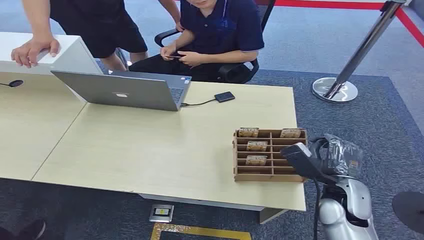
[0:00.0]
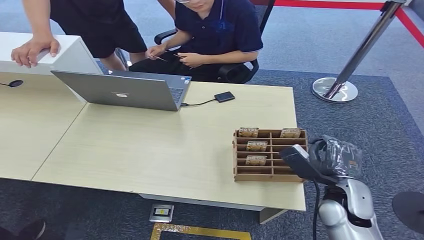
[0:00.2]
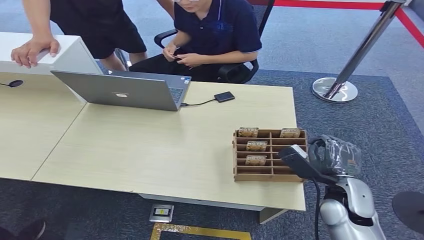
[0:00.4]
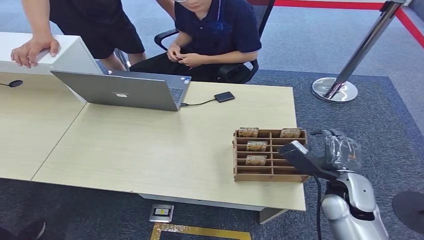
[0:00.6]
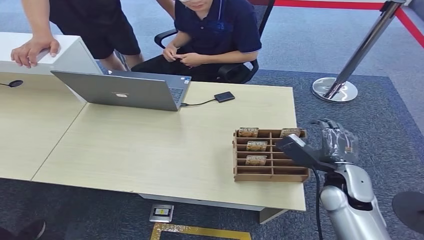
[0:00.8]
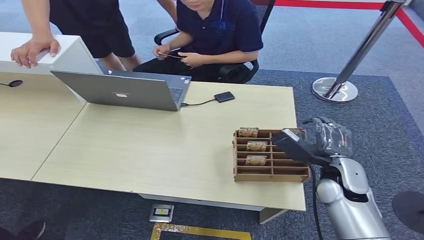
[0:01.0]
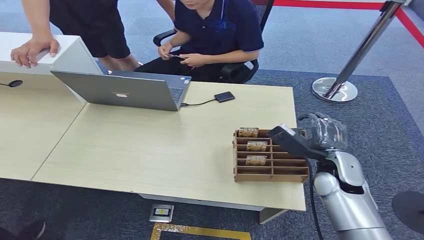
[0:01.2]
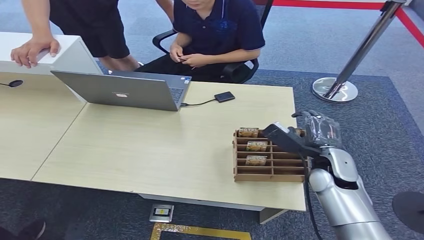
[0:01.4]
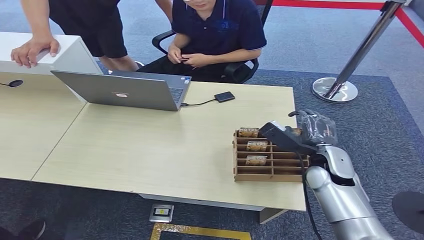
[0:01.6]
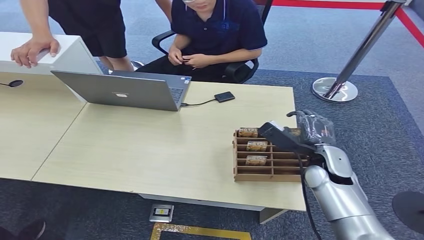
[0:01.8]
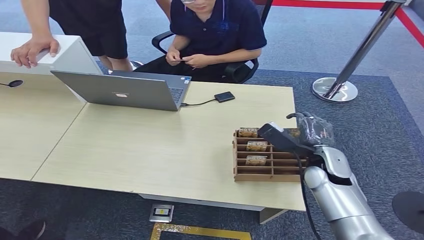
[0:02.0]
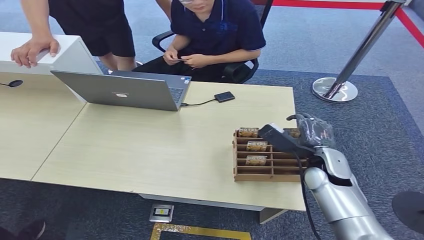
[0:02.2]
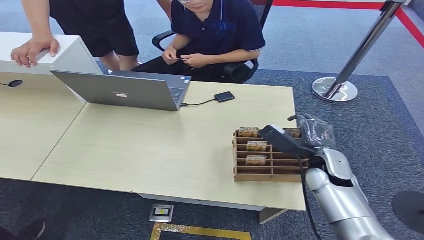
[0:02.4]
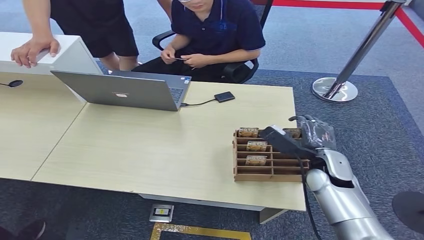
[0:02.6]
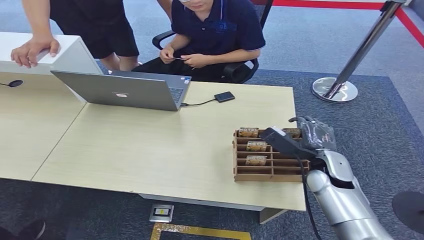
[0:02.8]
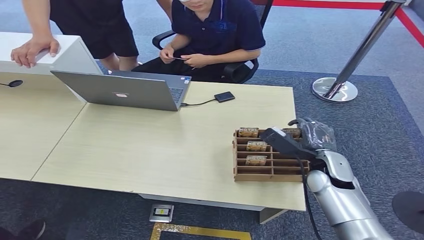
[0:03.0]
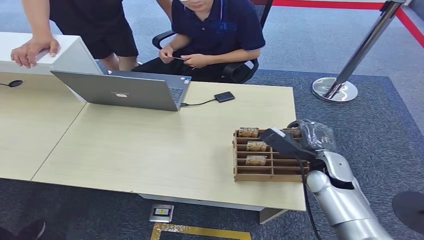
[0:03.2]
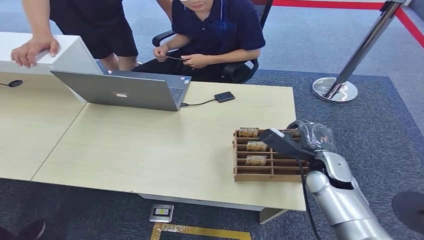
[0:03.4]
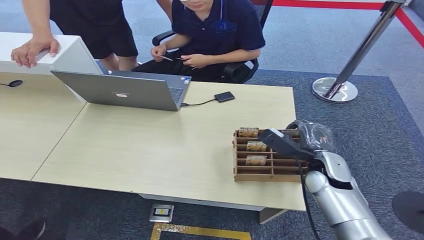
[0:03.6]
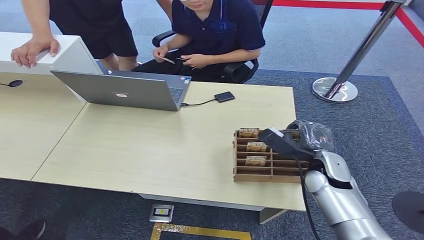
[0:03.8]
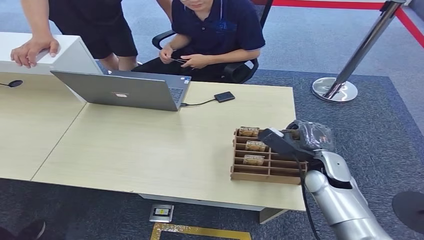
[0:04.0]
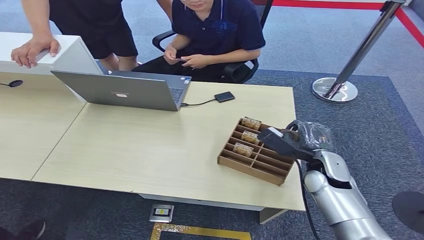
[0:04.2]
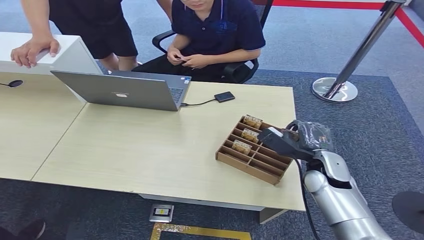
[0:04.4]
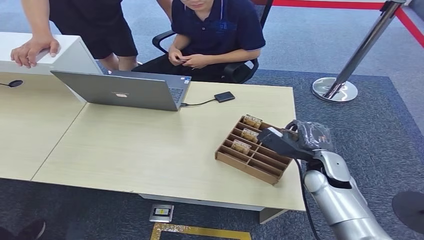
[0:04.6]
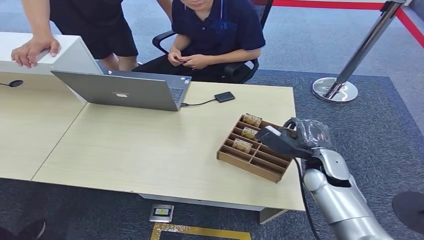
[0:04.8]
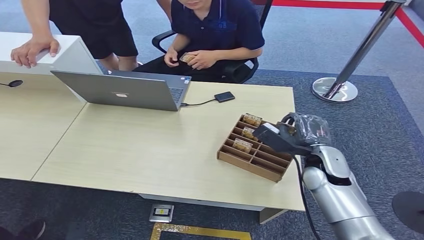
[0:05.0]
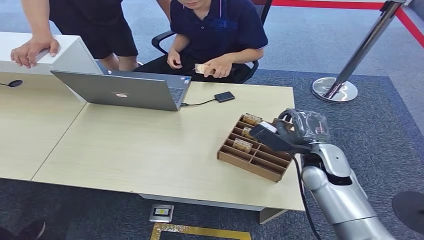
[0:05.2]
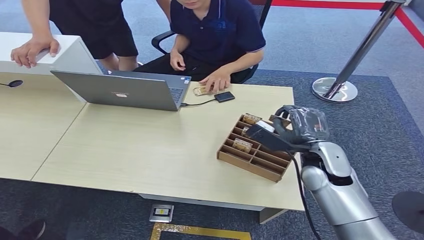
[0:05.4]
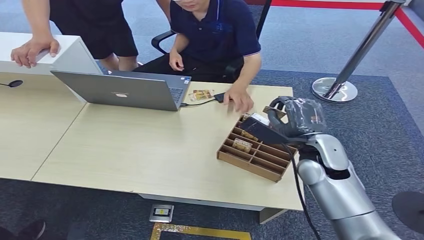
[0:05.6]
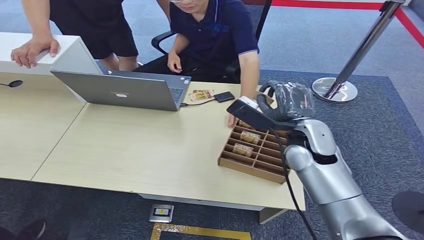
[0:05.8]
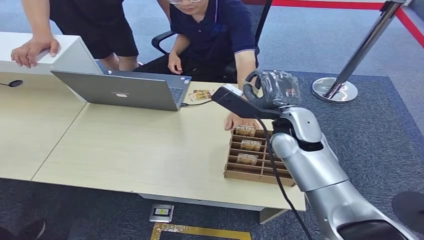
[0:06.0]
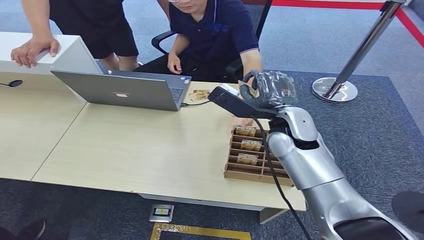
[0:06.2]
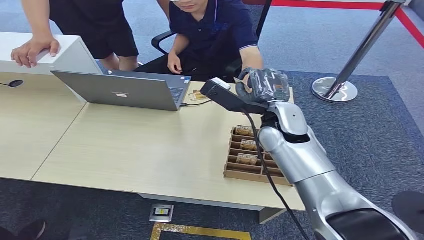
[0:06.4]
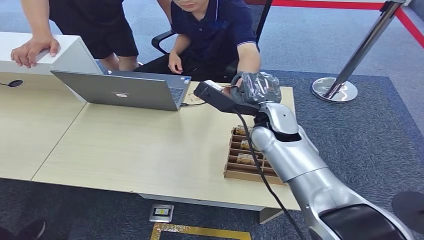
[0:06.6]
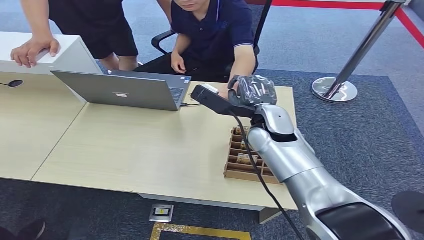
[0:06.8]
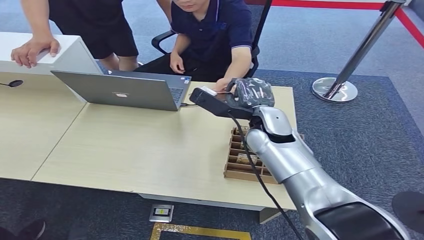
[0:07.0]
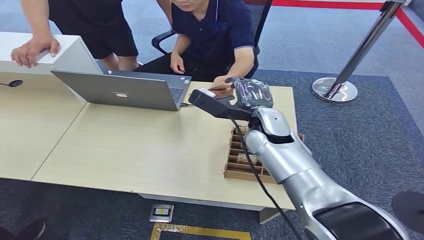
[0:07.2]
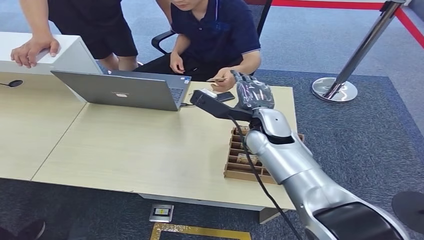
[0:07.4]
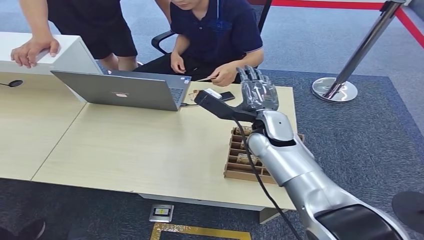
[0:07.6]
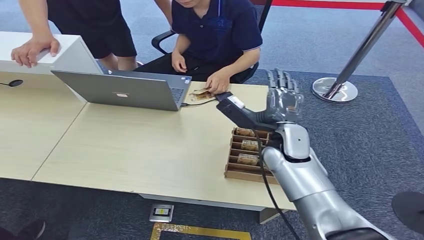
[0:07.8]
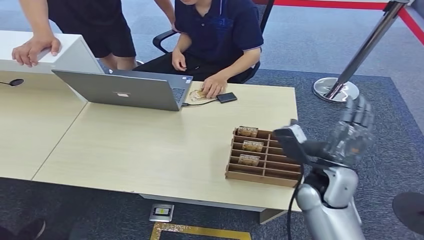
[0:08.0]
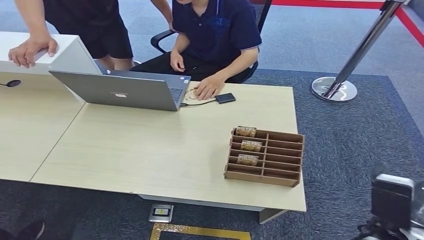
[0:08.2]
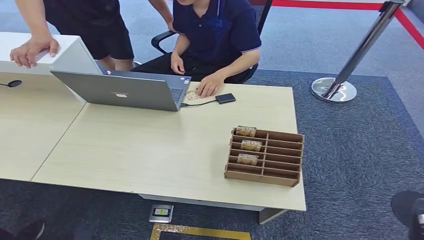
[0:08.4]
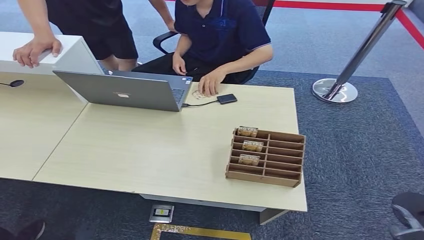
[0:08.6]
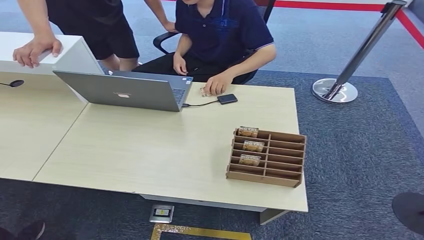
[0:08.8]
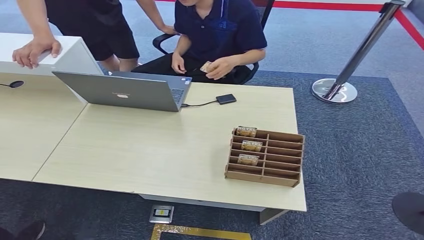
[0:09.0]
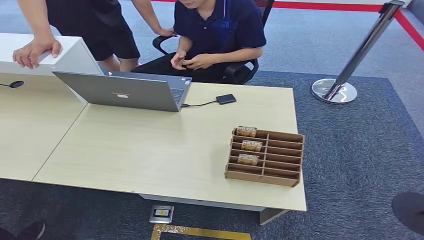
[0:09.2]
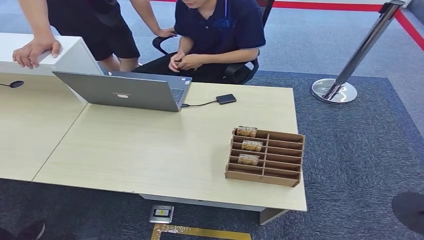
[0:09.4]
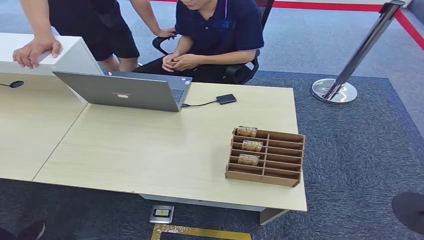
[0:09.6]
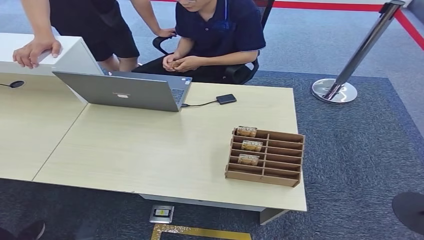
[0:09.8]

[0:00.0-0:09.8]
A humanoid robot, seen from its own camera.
Step, 0:00.0 to 0:04.8: Pick up the room card from the card holder.
Step, 0:05.2 to 0:09.8: Hand the room card to the target.
0:01.4 to 0:02.8: The hands make only small movements.
0:02.8 to 0:04.2: The two hands keep their place.
0:04.2 to 0:05.6: The right hand is displaced upward and to the left by roughly 15 cm.
0:05.6 to 0:07.0: The right hand goes approximately 5 cm to the left.
0:07.0 to 0:08.4: The right hand goes about 50 cm backward, to the right and downward.
0:08.4 to 0:09.8: The right hand goes approximately 20 cm to the left and downward.

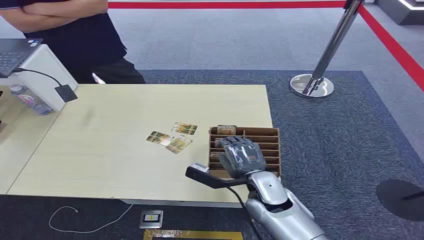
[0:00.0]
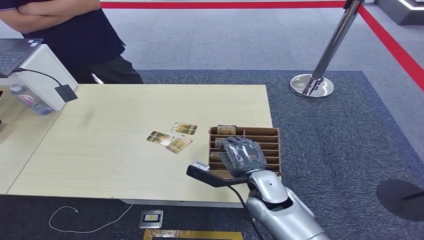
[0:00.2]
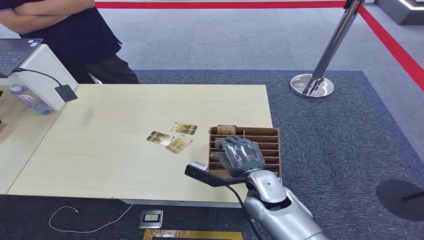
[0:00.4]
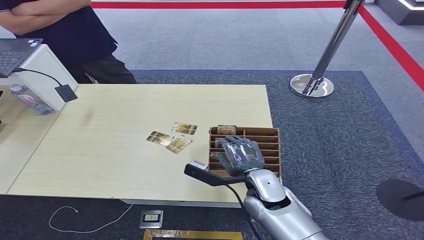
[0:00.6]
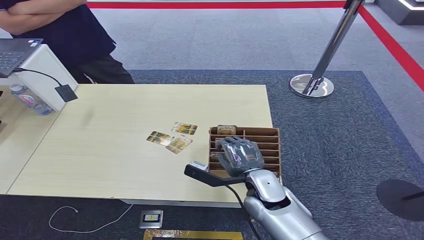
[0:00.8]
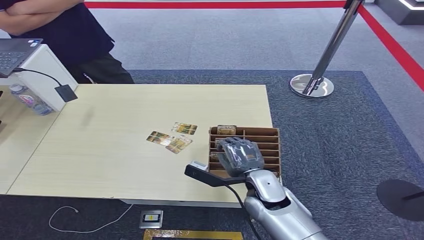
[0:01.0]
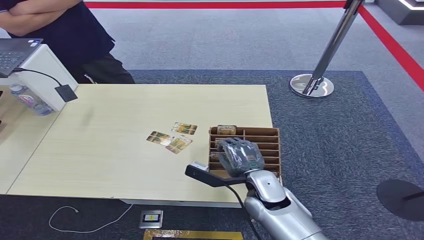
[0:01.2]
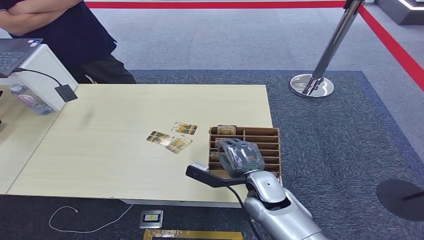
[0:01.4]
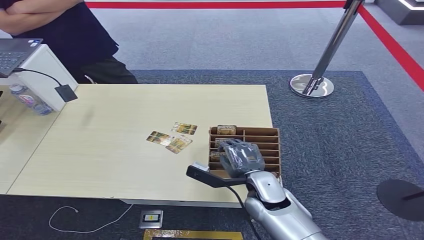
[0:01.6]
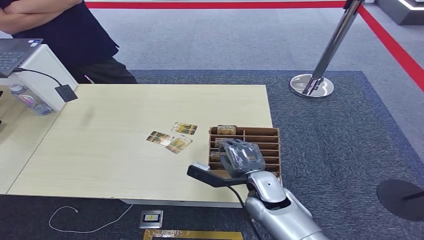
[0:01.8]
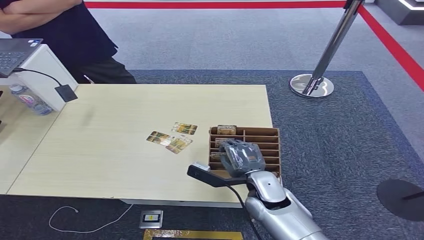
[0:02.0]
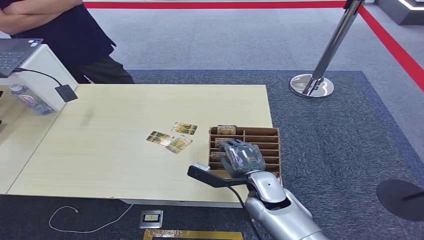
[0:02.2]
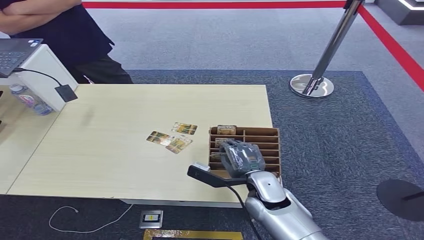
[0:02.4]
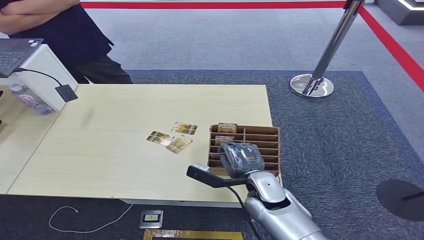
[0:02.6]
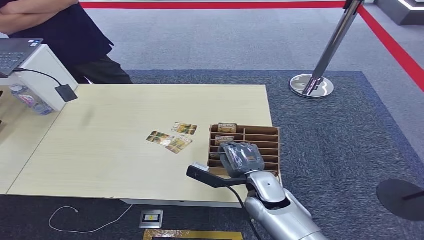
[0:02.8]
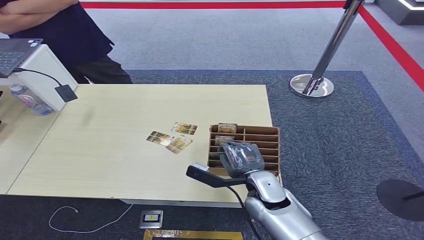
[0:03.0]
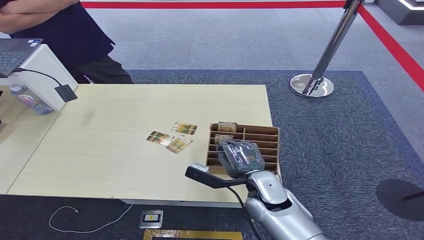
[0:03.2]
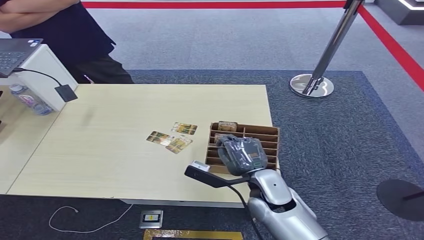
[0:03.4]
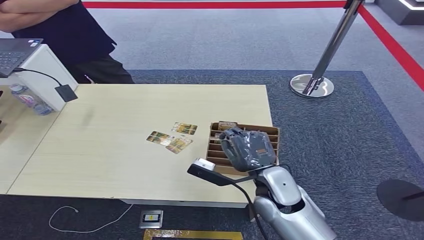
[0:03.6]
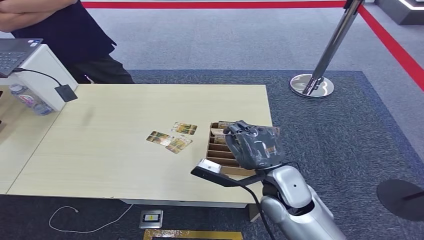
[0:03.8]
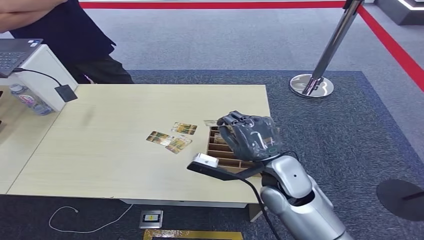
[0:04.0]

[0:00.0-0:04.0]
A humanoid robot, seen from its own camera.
Step, 0:00.0 to 0:04.0: Pick up the room card from the card holder.
0:01.4 to 0:02.6: Neither hand changes place.
0:02.6 to 0:04.0: The right hand travels upward by approximately 15 cm.
